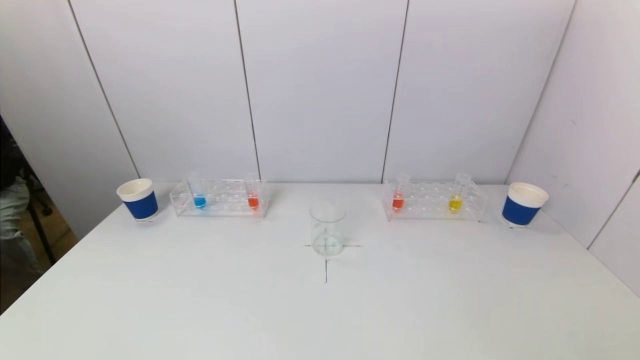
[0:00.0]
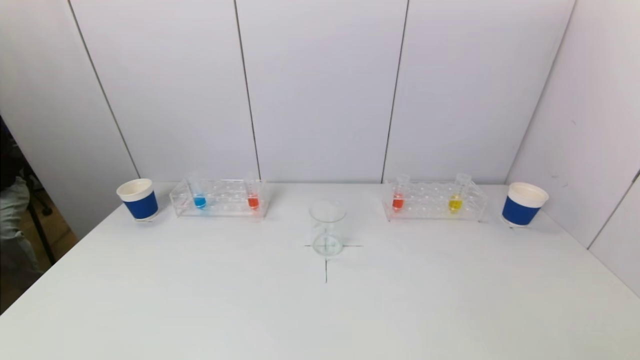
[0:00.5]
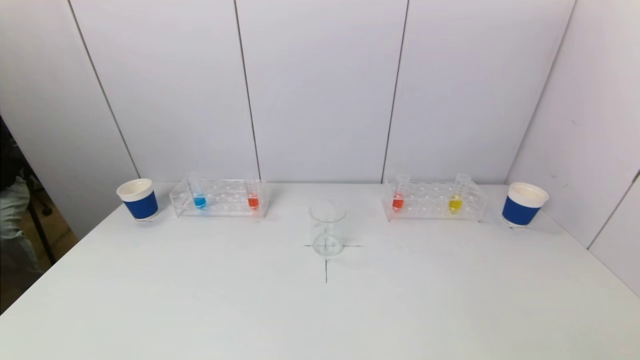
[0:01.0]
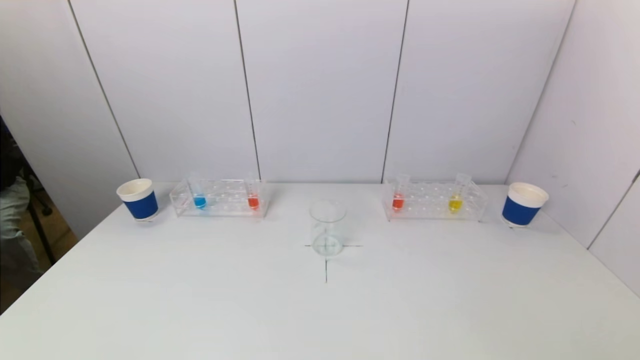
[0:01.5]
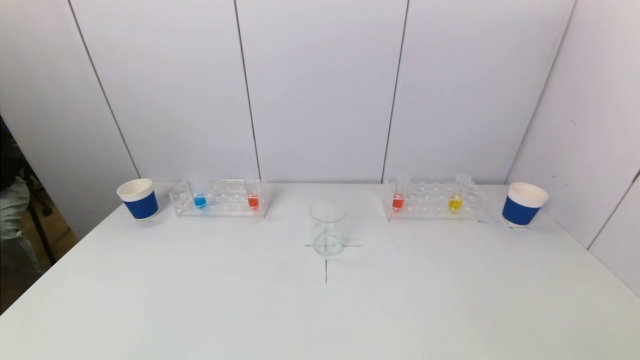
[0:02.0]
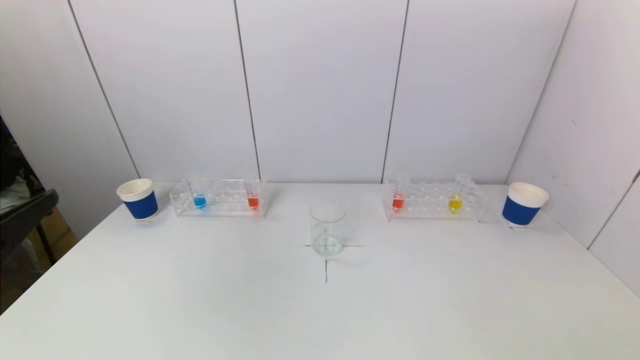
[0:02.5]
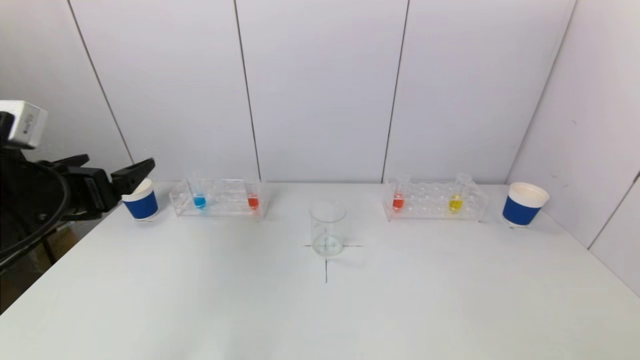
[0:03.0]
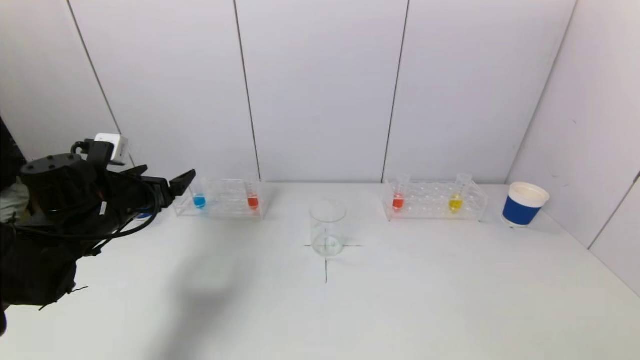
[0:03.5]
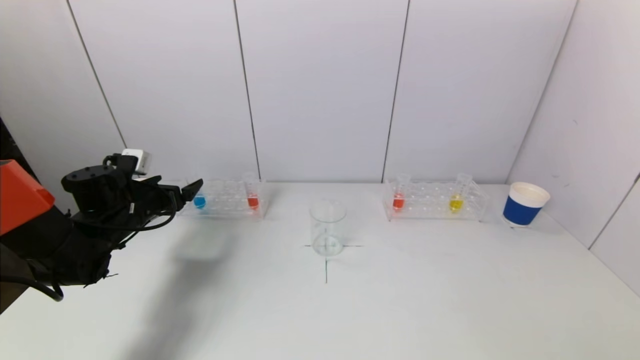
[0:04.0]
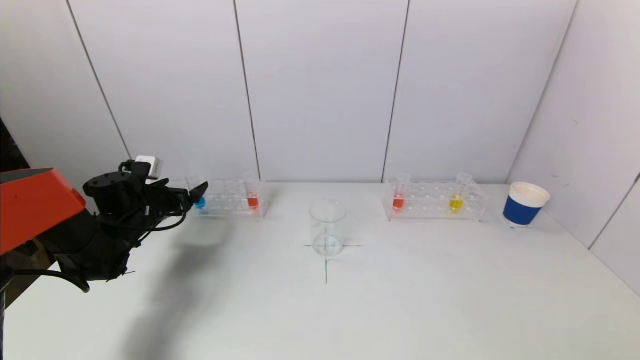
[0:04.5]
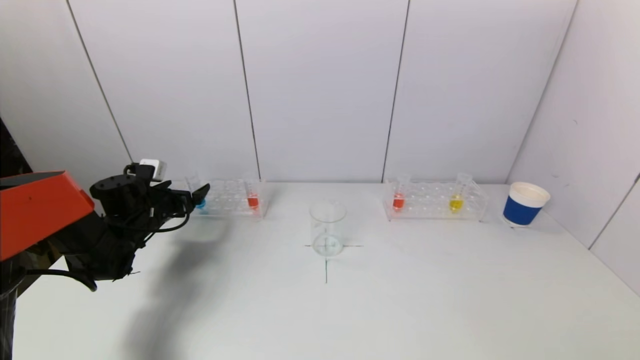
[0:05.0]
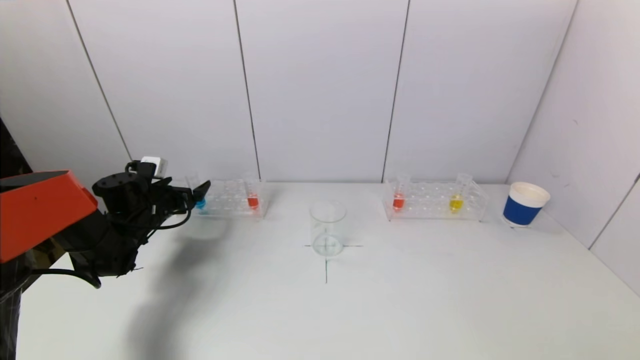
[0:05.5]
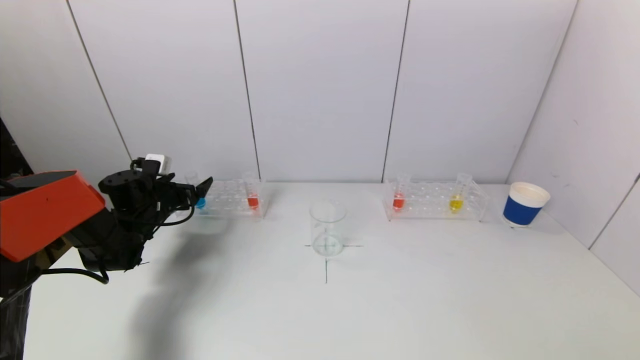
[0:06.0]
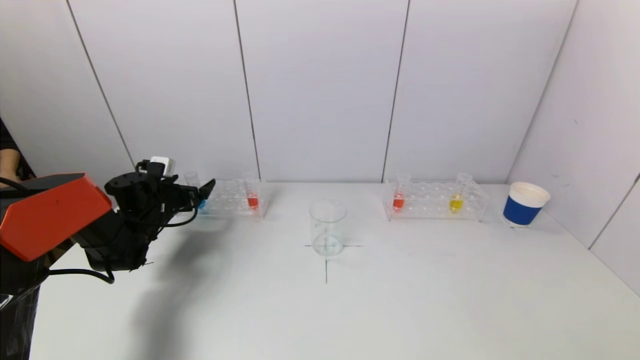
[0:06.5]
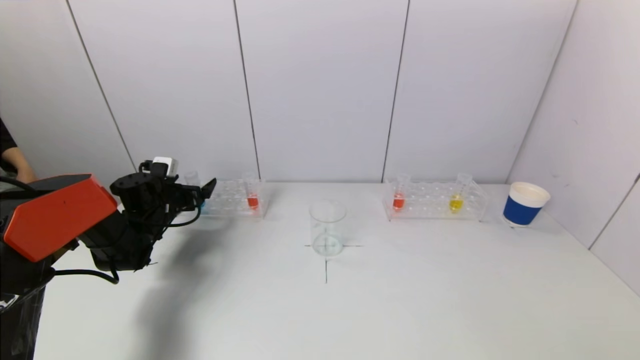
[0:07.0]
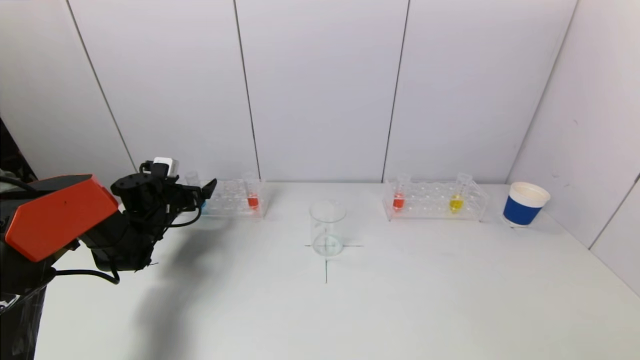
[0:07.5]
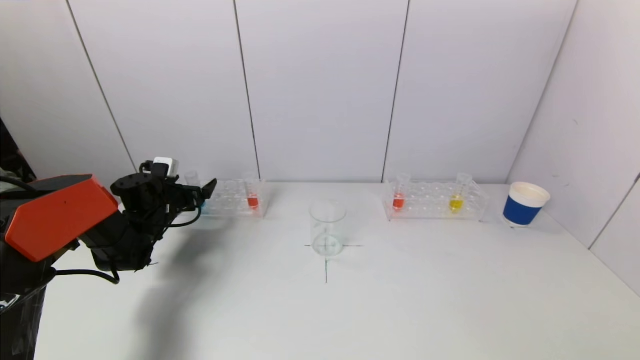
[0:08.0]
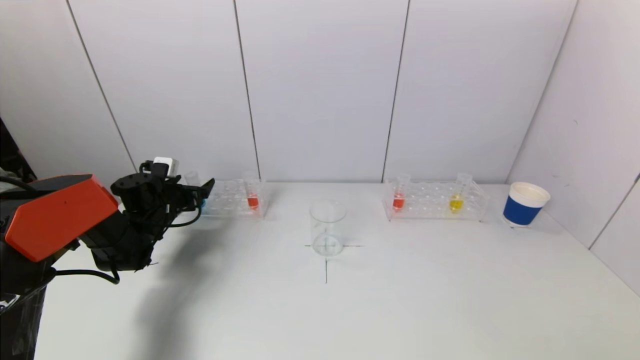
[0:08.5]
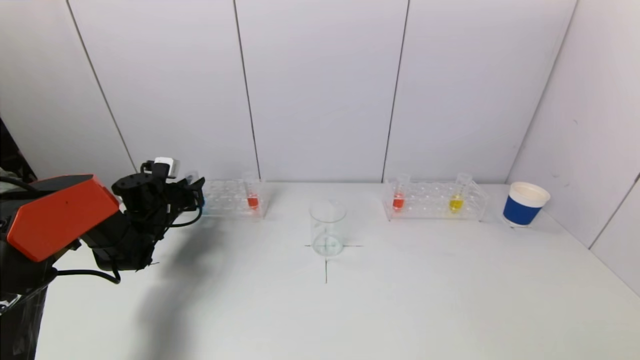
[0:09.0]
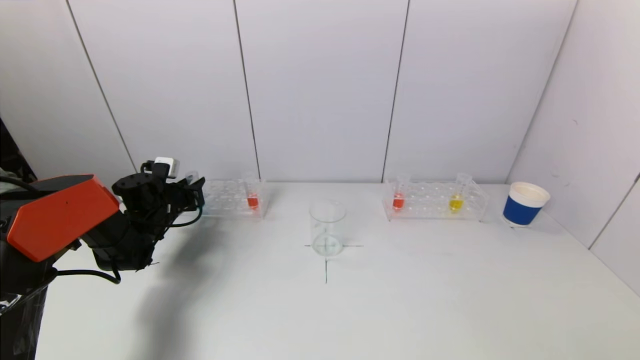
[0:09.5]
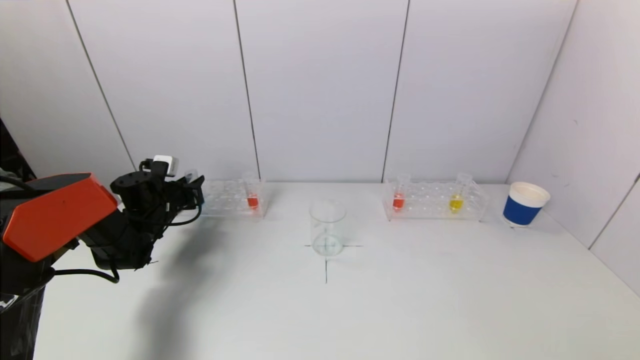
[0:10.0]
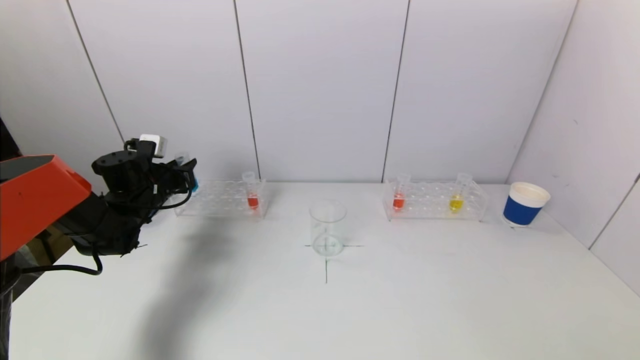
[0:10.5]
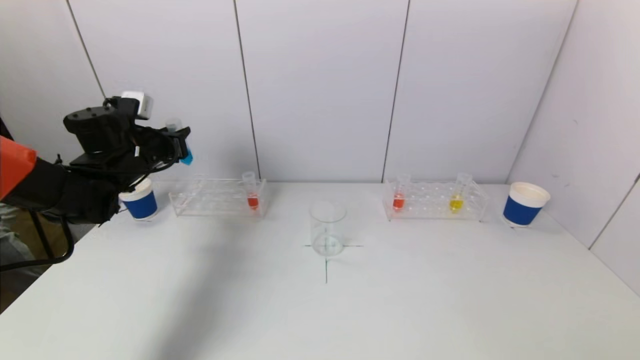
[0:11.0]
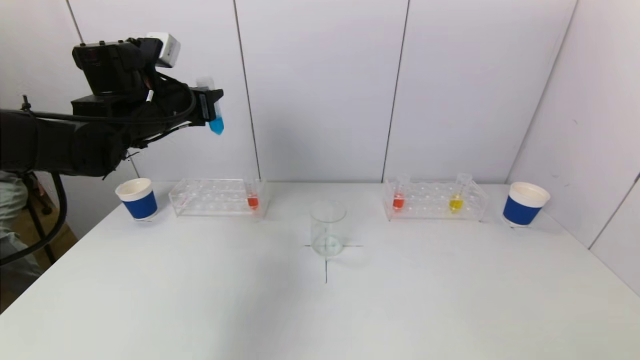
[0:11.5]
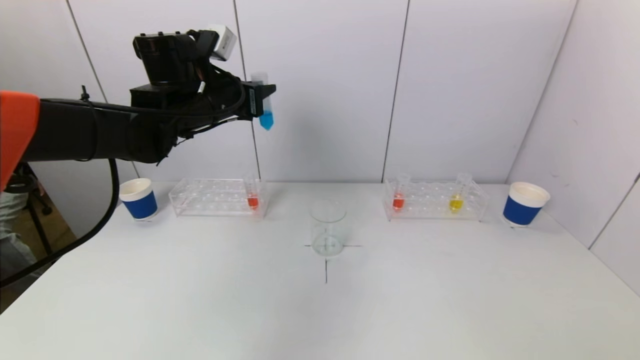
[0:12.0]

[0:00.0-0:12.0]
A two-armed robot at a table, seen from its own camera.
Task of the whole recording: pick up a test tube with pigment on left test tube rack and a test tube with pigment on right test tube rack by grippers and pour them into the beaker.
Step, 0:00.0 to 0:09.5: Grasp the blue reagent with the left gripper.
0:02.0 to 0:04.0: The left gripper is displaced forward by about 40 cm.
0:04.0 to 0:06.0: The left gripper moves forward, approximately 5 cm.
0:06.0 to 0:08.0: The grippers stay close to where they were, moving slightly.
0:08.0 to 0:10.0: The left gripper closes its fingers.
0:10.0 to 0:12.0: The left gripper travels upward and to the right by roughly 25 cm.

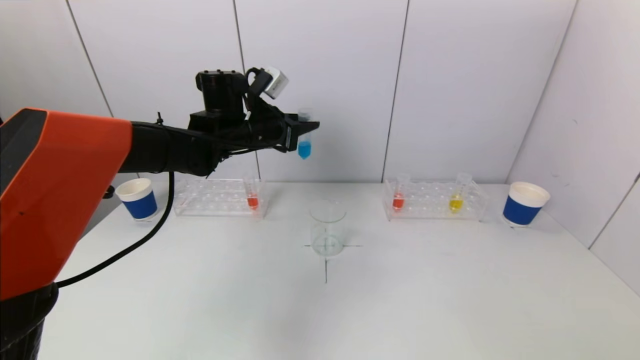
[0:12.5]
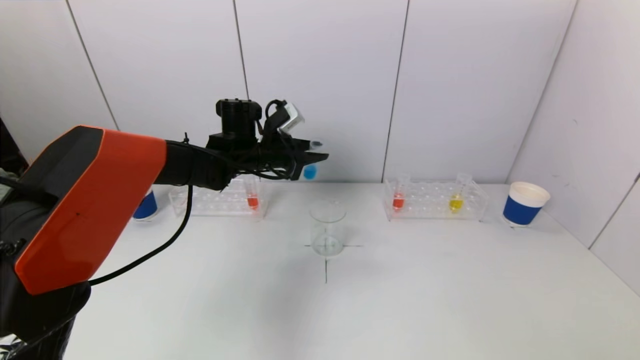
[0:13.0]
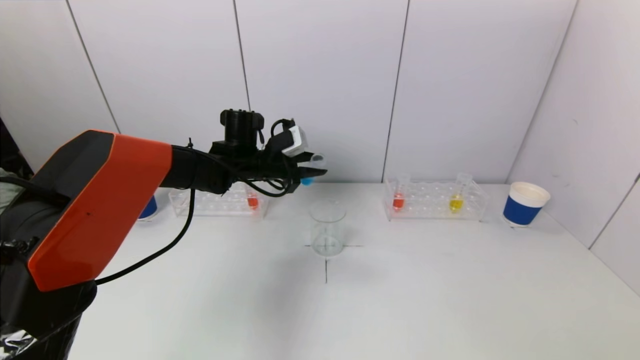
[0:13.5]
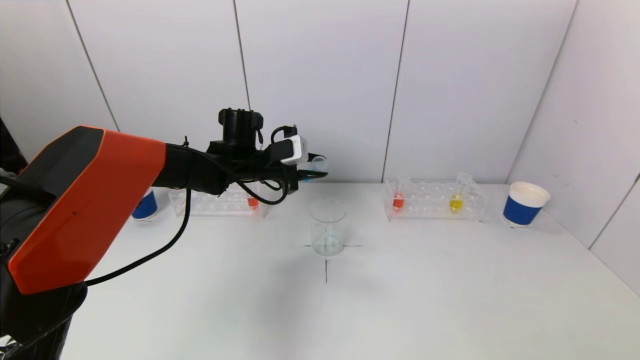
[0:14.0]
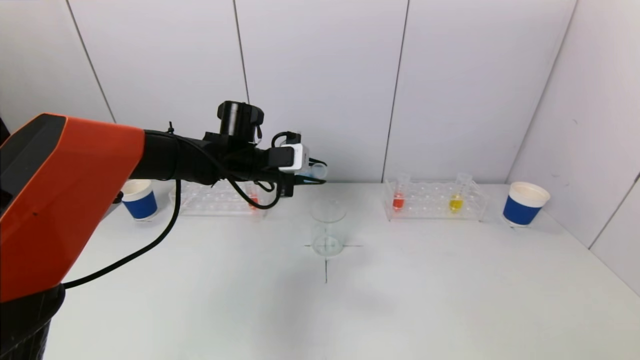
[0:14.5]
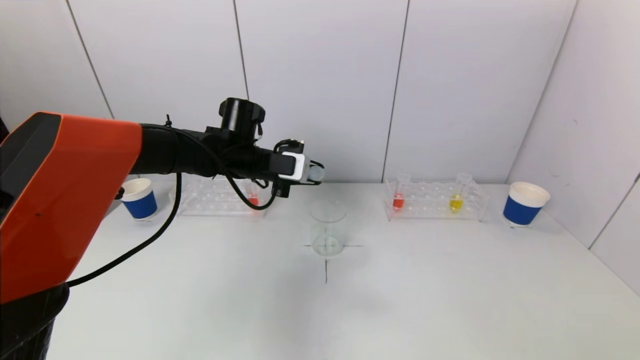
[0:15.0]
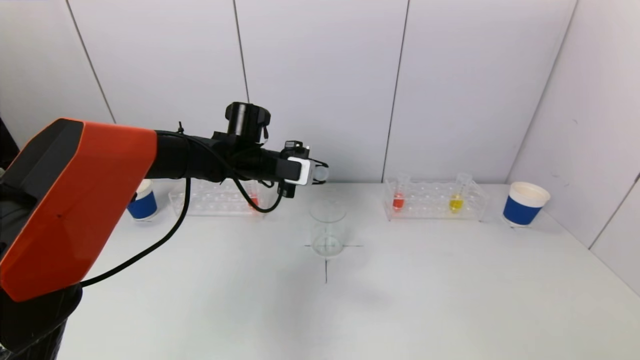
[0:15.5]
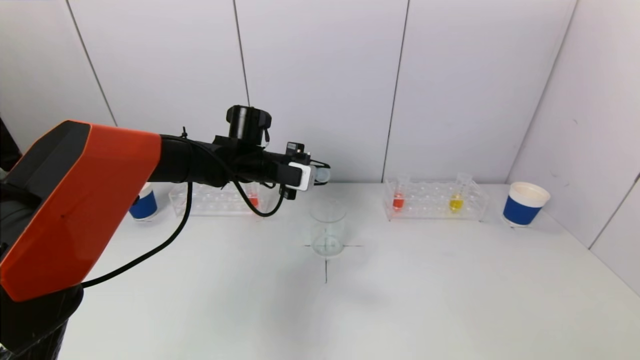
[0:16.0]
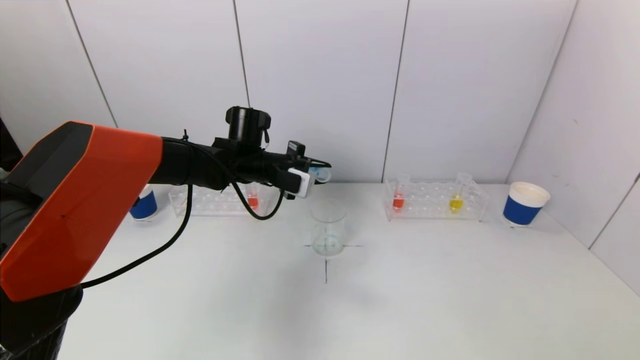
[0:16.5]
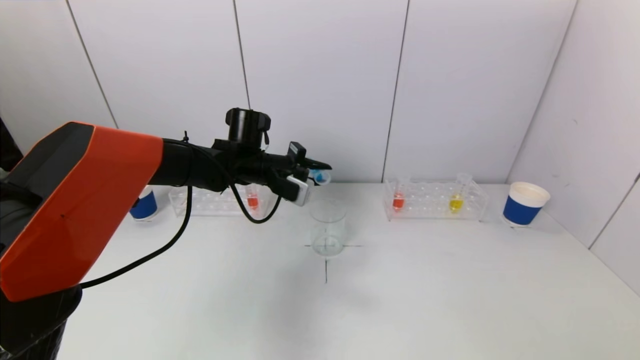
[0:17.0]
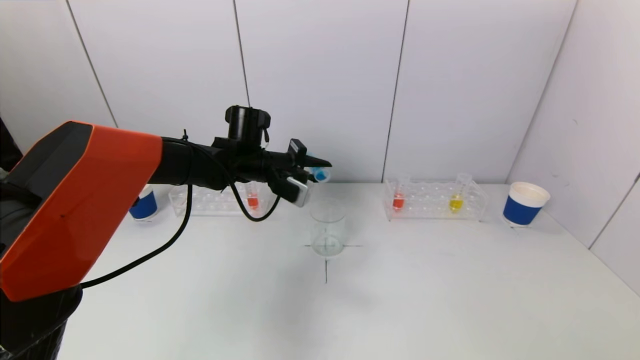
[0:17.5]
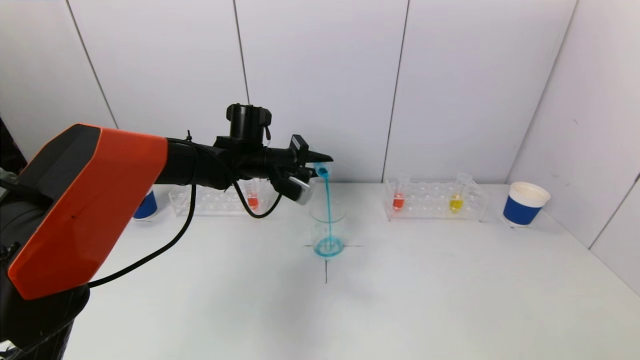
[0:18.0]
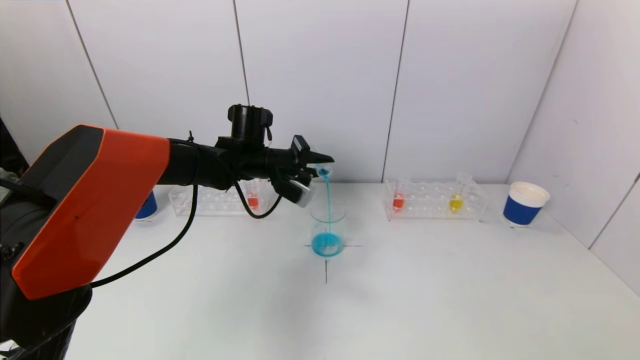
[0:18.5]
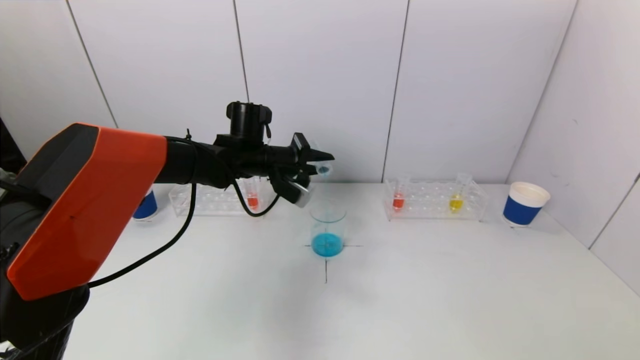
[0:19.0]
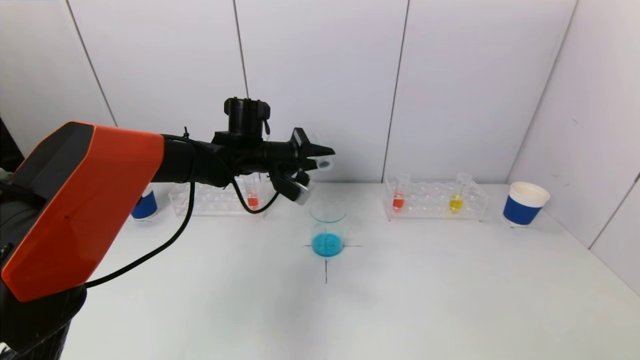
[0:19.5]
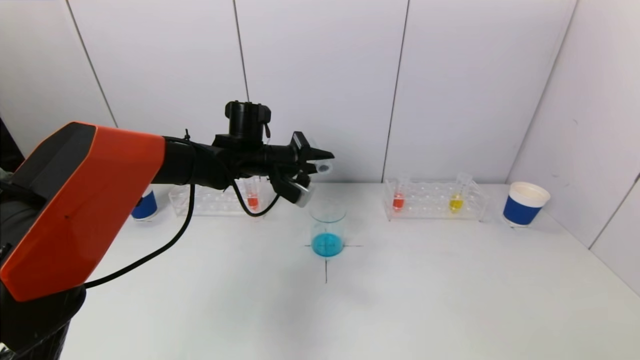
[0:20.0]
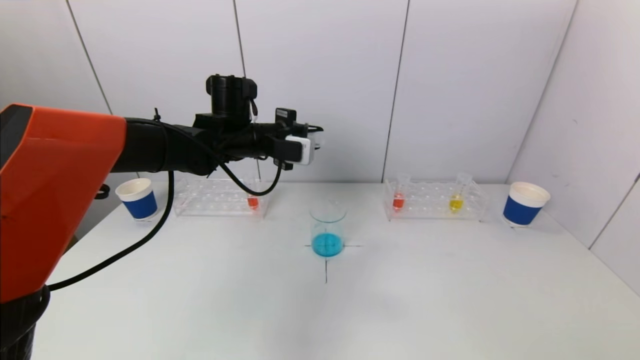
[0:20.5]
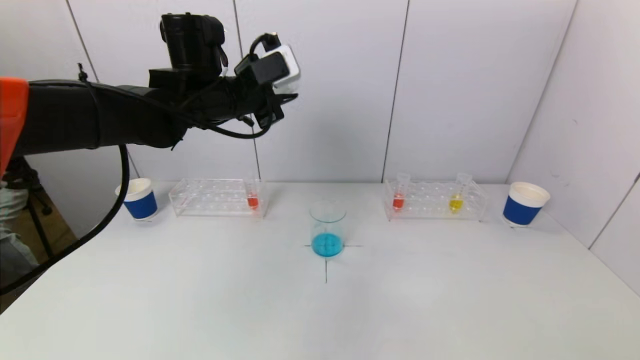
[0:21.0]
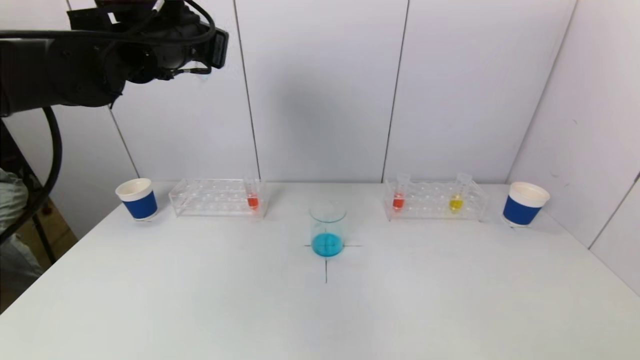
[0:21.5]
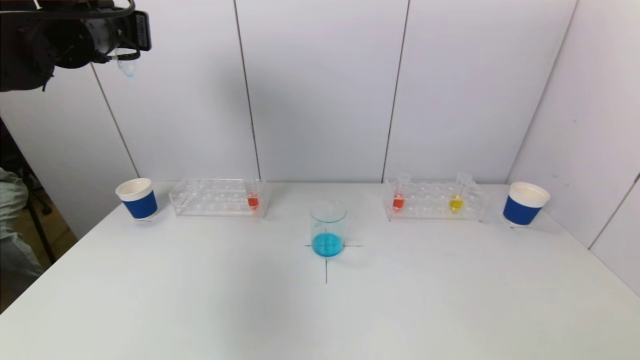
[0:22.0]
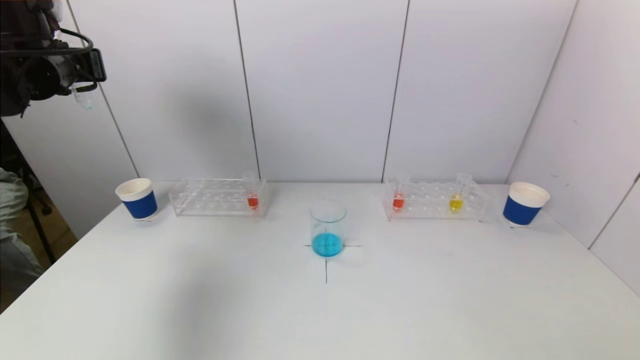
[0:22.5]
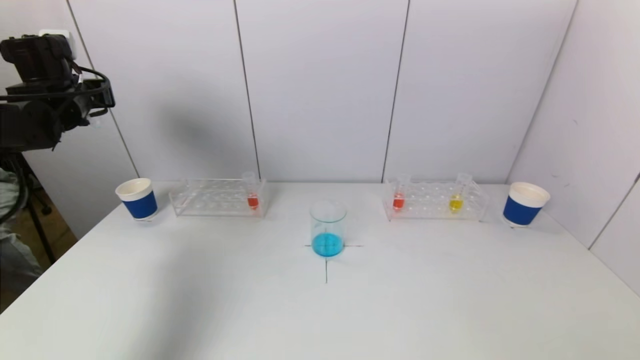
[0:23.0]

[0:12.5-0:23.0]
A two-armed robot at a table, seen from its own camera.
Task of the whole recording: pick up a test tube with pigment on left test tube rack and a test tube with pigment on right test tube rack by grippers and pour them into the beaker.
Step, 0:12.5 to 0:19.5: Pour the blue reagent into the graduated cylinder with the left gripper.
0:19.0 to 0:21.0: The left gripper moves upward and backward, about 15 cm.
0:21.0 to 0:23.0: The left gripper is displaced to the left by roughly 25 cm.
